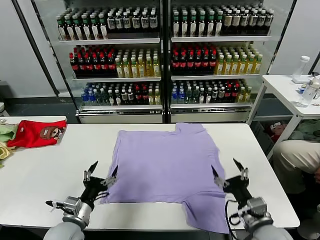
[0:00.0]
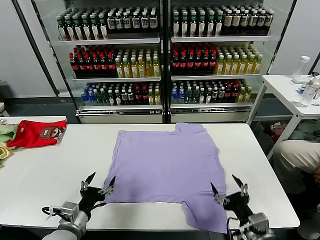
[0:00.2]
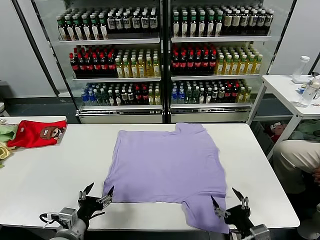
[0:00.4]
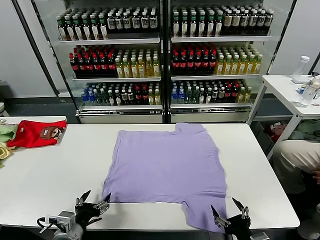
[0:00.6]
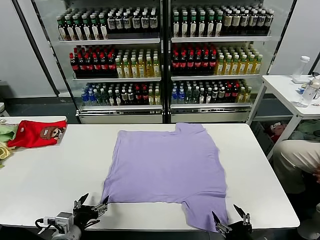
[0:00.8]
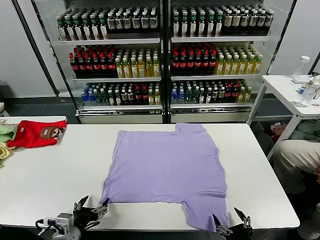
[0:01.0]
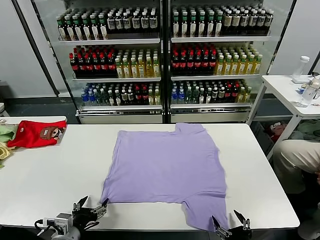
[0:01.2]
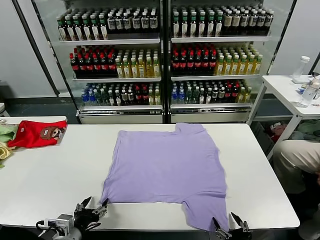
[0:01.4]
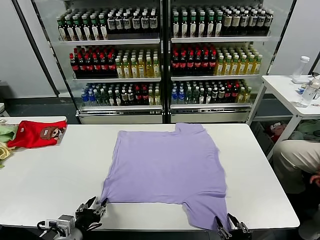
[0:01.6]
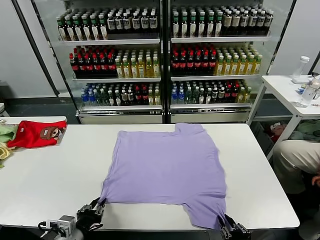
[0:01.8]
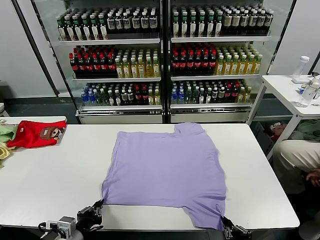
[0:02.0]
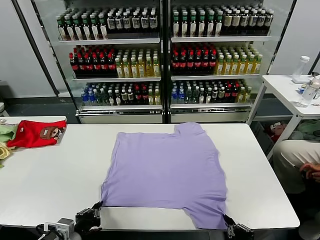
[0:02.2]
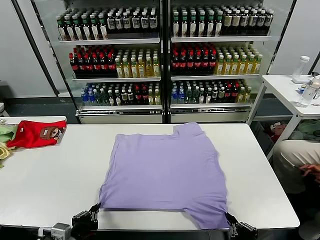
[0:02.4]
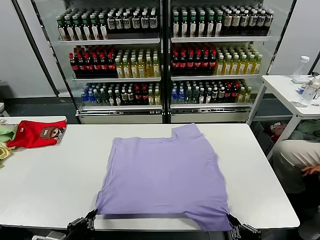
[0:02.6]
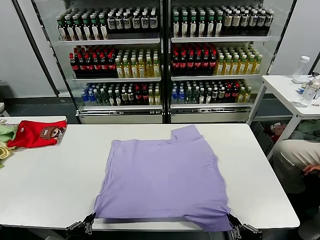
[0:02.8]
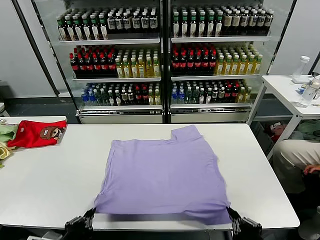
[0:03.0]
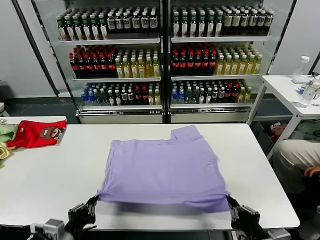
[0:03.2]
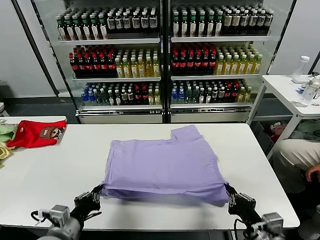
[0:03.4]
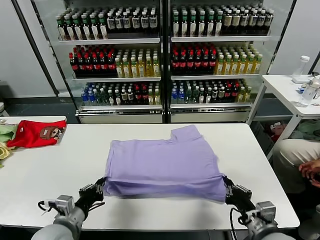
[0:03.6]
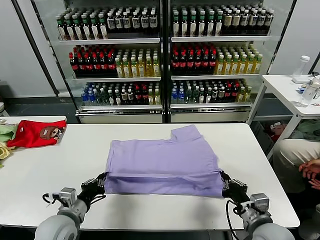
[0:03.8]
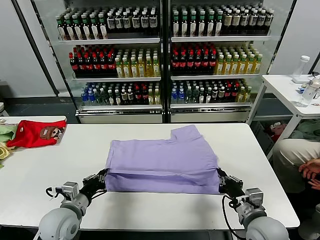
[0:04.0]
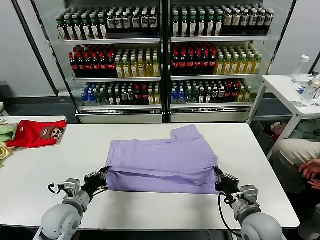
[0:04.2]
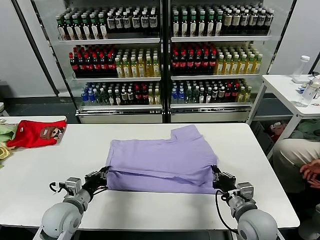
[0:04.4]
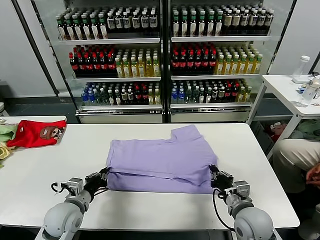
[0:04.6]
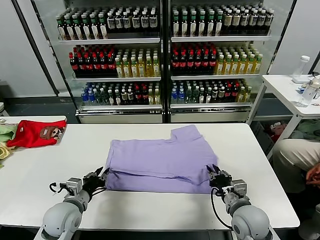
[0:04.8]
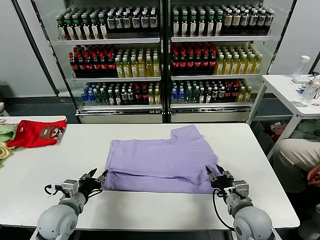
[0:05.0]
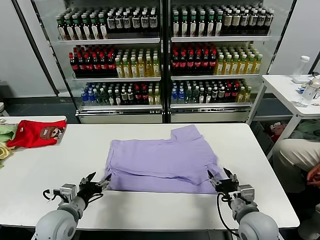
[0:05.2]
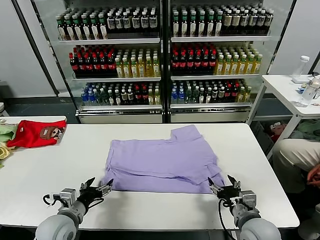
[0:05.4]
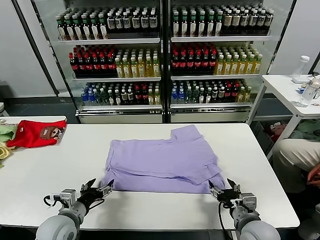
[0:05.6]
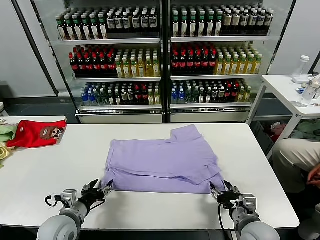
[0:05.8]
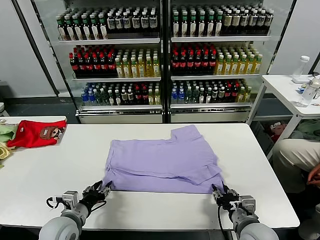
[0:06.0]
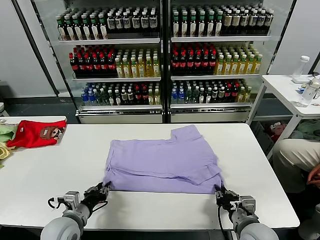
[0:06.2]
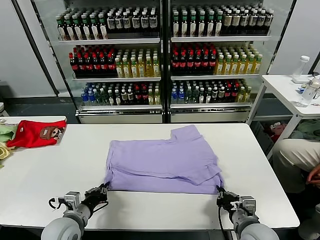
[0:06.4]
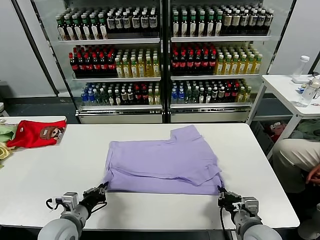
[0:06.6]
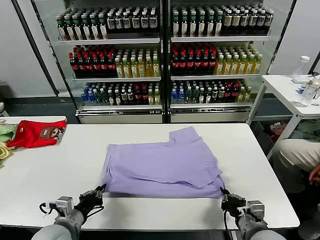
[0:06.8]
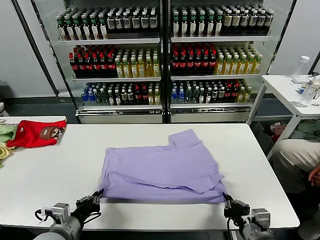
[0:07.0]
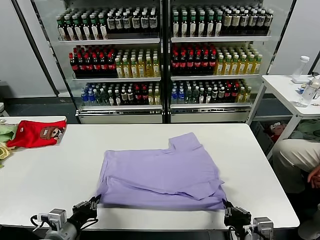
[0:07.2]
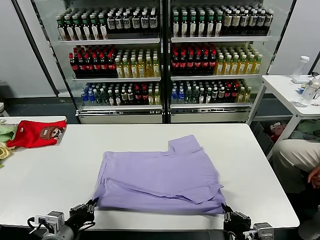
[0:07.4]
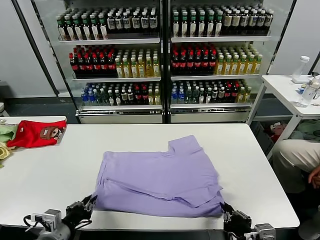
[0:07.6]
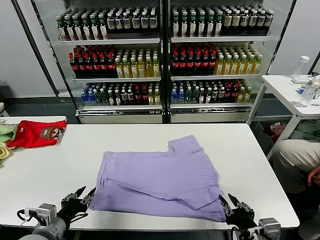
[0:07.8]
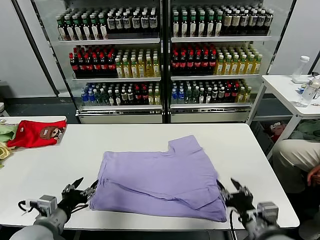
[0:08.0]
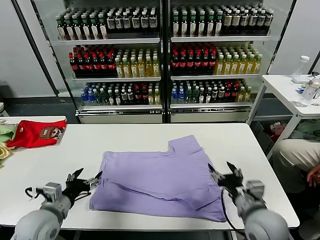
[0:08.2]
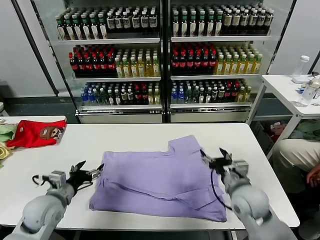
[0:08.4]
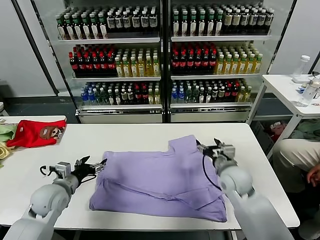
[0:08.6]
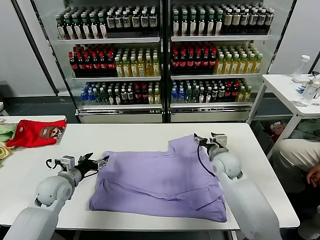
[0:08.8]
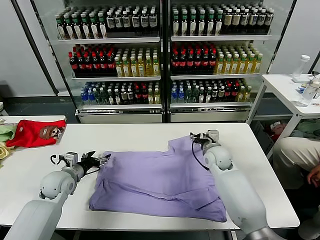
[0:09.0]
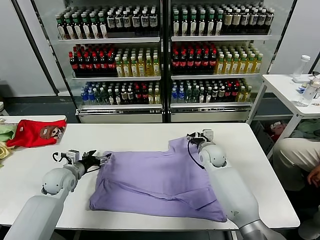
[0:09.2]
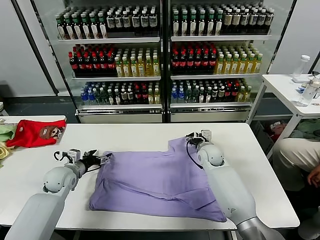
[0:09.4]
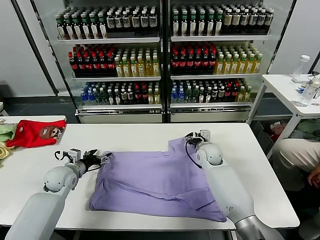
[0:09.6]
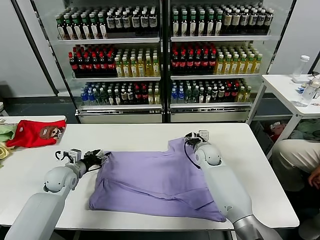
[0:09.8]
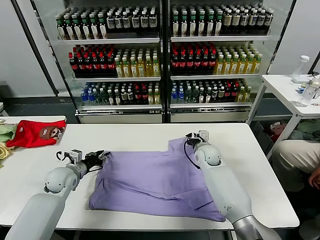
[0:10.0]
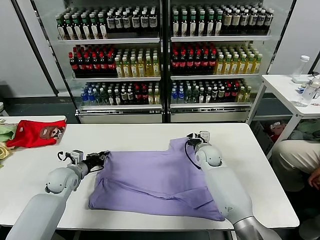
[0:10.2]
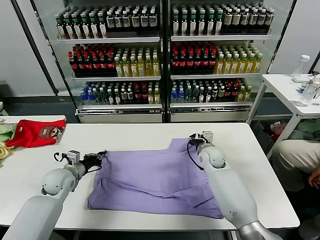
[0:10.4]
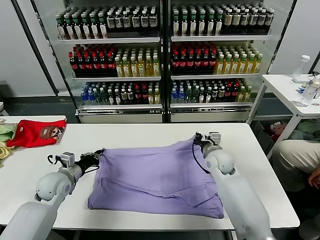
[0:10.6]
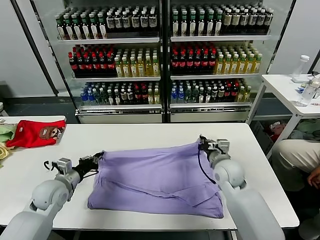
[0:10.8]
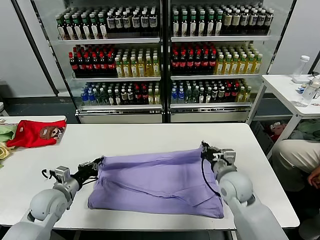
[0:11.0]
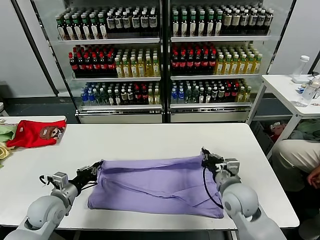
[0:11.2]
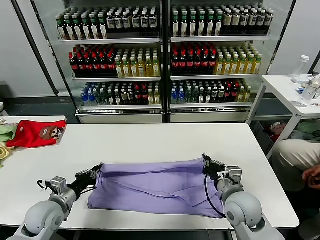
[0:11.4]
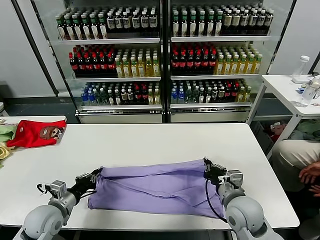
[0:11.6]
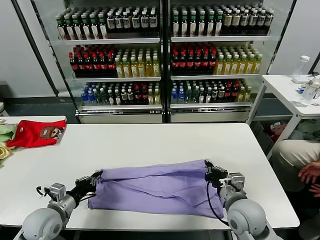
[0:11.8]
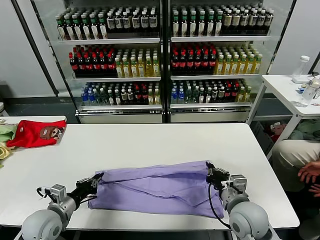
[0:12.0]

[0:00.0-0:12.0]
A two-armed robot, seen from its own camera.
Task of the whole recording: fold and organize the clothes.
Step, 0:00.0 to 0:02.0: use both grippers simultaneously to clamp the lower edge of the clothing fabric.
Step, 0:02.2 to 0:05.2: use both grippers to drag the lower edge of the fabric forward and fold it over the upper edge.
Step, 0:05.4 to 0:07.8: Drag the clothes downward with both gripper.
Step, 0:08.0 to 0:10.2: use both grippers simultaneously to clamp the upper edge of the clothing fabric.
0:01.6 to 0:03.0: The right gripper travels upward by some 5 cm, and closes its fingers; the left gripper goes roughly 5 cm backward and upward, and closes its fingers.
0:03.0 to 0:04.4: Both grippers move forward, approximately 15 cm.
0:04.4 to 0:06.0: The right gripper opens, while the left gripper opens its fingers.
0:06.0 to 0:07.6: The right gripper shifts roughly 10 cm backward and upward; the left gripper shifts about 5 cm backward.
0:07.6 to 0:09.0: The left gripper moves forward, about 20 cm, and opens; the right gripper travels forward by some 35 cm, and opens.
0:09.0 to 0:10.4: The right gripper closes its fingers. Meanwhile the left gripper closes up.
0:10.4 to 0:12.0: The right gripper heads backward, covering approximately 25 cm. The left gripper shifts some 15 cm backward.

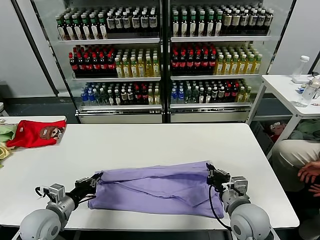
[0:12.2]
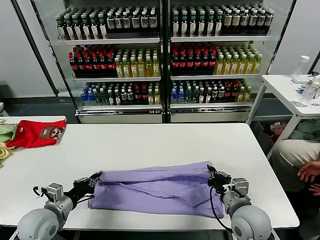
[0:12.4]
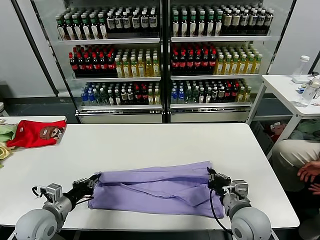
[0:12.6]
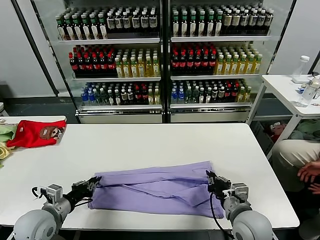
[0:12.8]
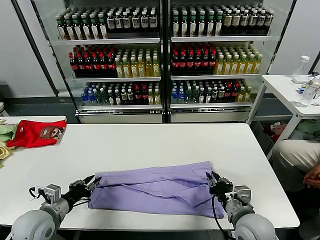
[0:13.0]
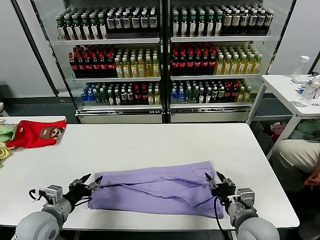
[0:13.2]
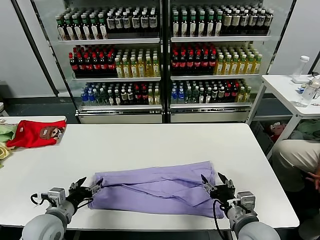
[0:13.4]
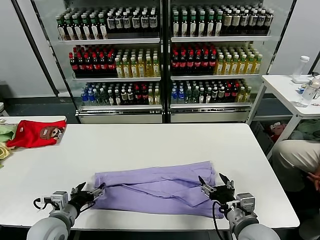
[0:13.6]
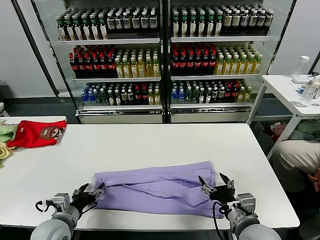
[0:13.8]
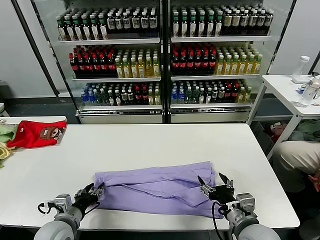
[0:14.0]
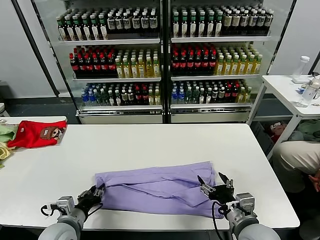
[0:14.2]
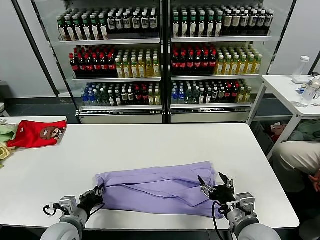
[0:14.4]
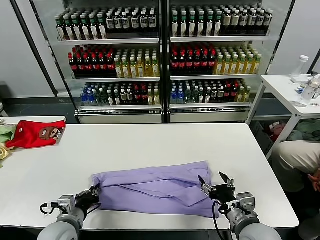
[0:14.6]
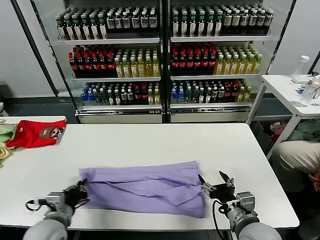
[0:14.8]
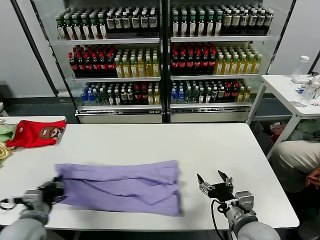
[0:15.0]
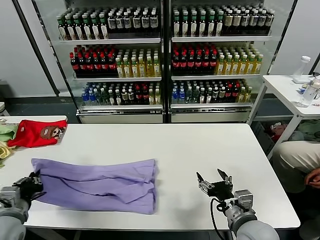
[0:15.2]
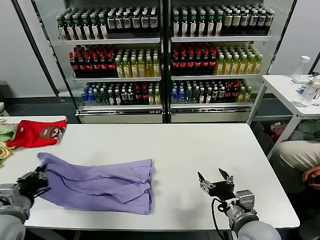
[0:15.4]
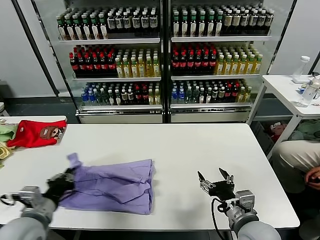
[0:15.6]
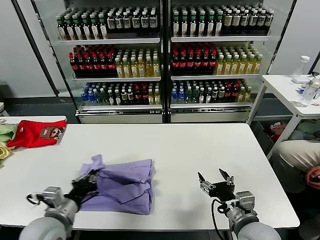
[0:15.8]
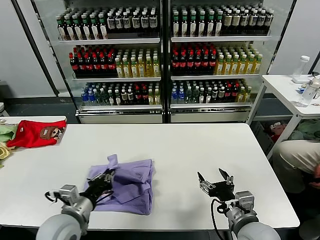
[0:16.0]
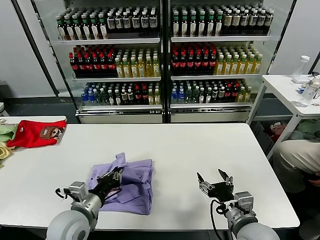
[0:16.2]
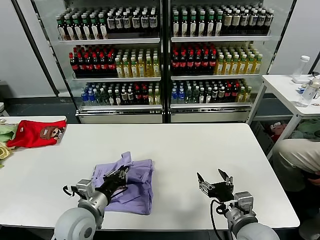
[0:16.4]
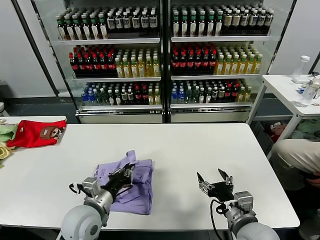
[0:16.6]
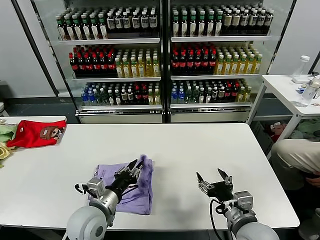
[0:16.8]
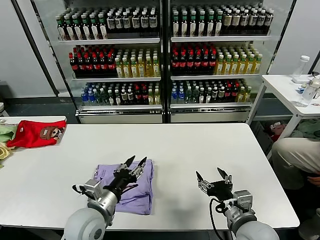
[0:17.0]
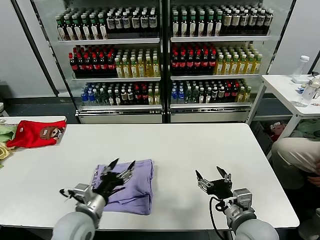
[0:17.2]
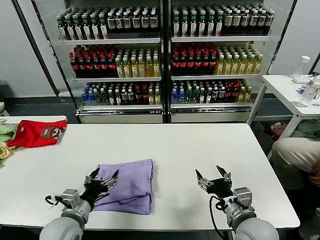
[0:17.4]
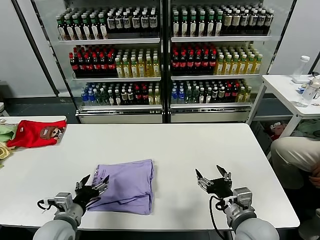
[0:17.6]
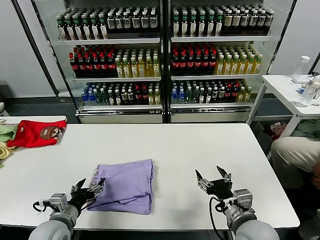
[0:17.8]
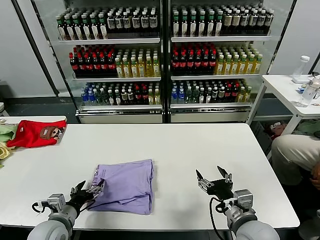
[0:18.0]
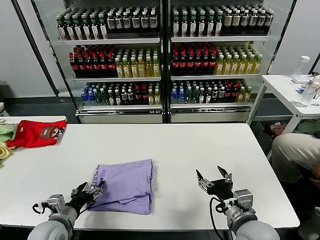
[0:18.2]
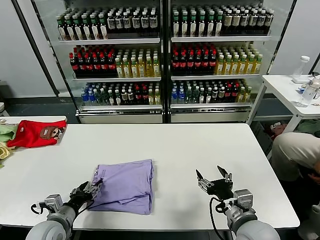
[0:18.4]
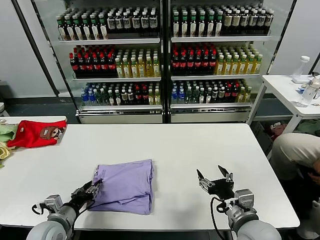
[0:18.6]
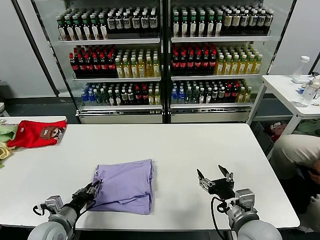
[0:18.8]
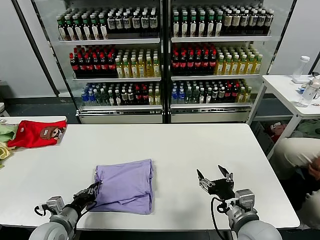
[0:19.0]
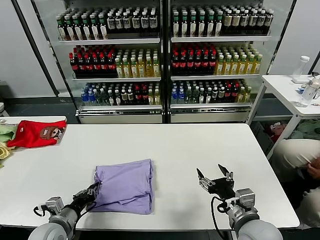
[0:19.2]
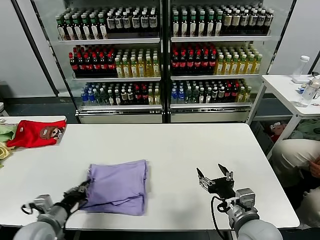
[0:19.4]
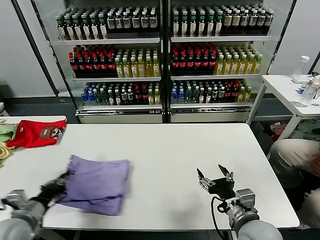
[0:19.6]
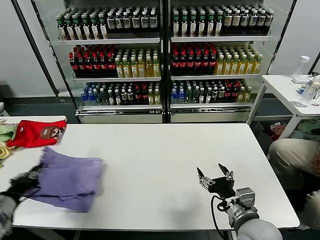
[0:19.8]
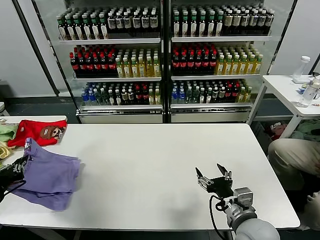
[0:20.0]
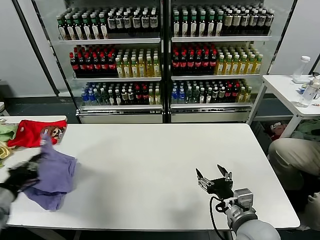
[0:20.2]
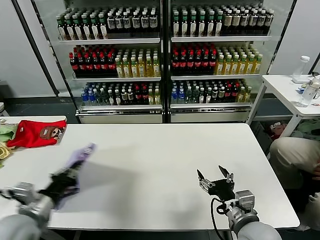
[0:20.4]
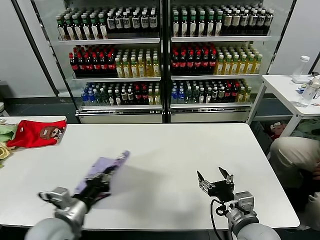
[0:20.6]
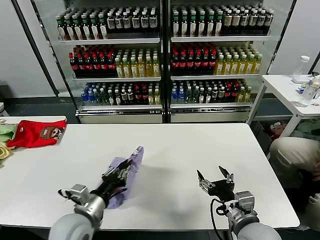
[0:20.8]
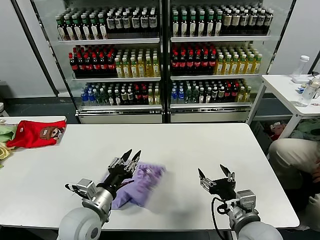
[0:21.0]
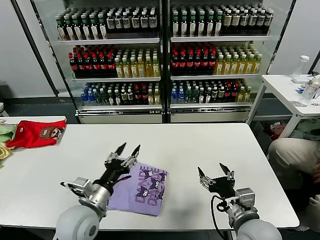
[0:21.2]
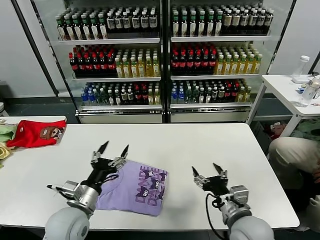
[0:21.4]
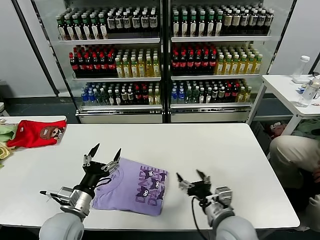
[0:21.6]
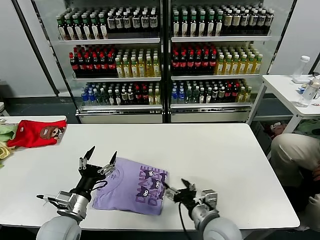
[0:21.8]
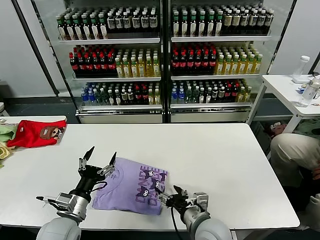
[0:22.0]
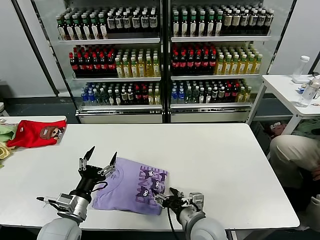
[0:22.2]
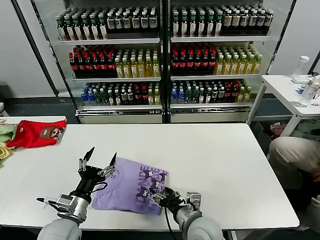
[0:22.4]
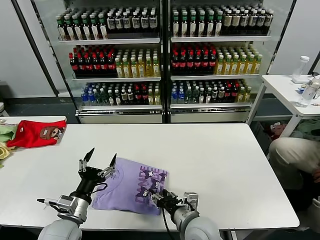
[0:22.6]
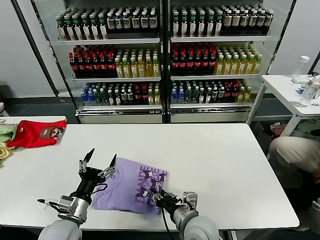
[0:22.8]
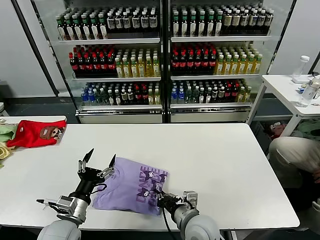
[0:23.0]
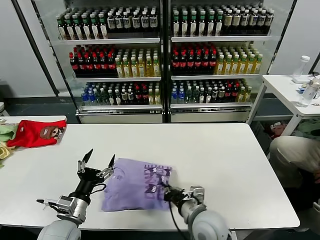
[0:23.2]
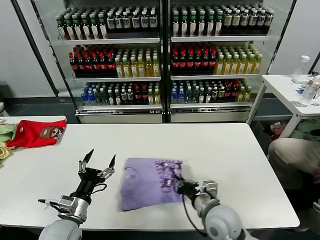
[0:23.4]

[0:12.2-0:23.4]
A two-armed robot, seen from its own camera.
Task of the whole recording: fold and organize the clothes.
Step, 0:13.4 to 0:14.4: use the left gripper to clamp the left edge of the fabric.
Step, 0:14.6 to 0:17.0: use the left gripper to drag the left edge of the fabric to the left and folds it over the right edge.
Step, 0:17.2 to 0:21.0: Flip the folded clothes over with left gripper.
0:12.2 to 0:13.8: The right gripper goes roughly 5 cm backward, and opens its fingers, while the left gripper opens up.
0:13.8 to 0:15.4: The left gripper moves upward and to the left, approximately 10 cm, and closes.
0:15.4 to 0:17.0: The left gripper goes about 20 cm to the right, and opens its fingers.
0:17.0 to 0:18.6: The left gripper moves to the left and downward, roughly 15 cm, and opens and closes again.
0:18.6 to 0:20.2: The left gripper travels upward and to the left by roughly 20 cm, and closes.
0:20.2 to 0:21.8: The right gripper heads to the left, covering about 5 cm. The left gripper goes about 20 cm to the right and downward, and opens up.
0:21.8 to 0:23.4: The right gripper closes its fingers.
